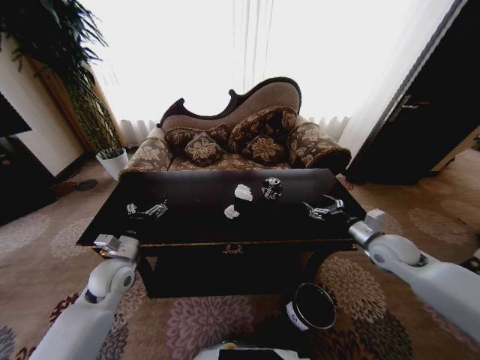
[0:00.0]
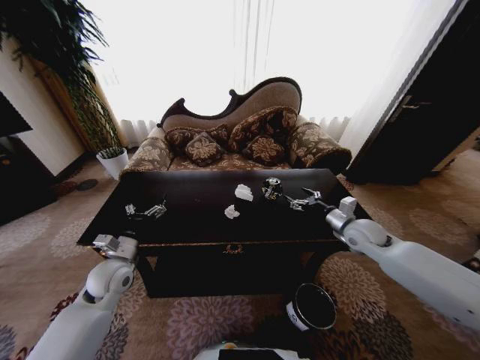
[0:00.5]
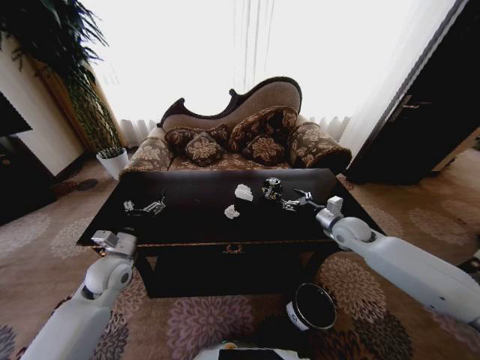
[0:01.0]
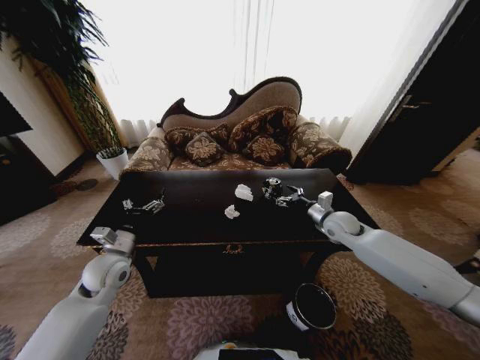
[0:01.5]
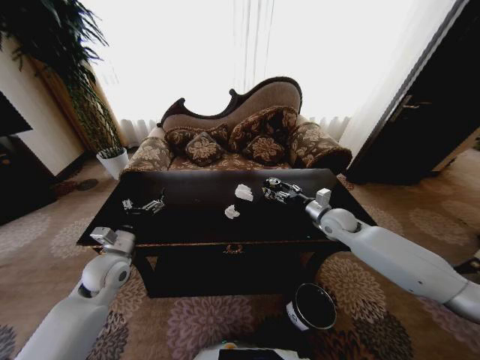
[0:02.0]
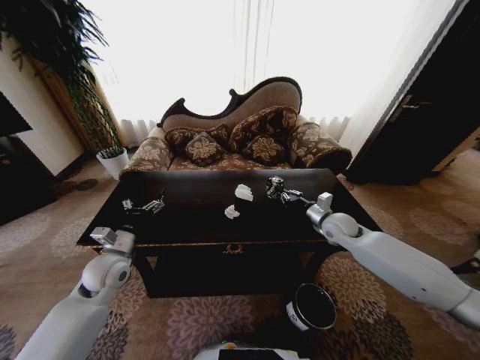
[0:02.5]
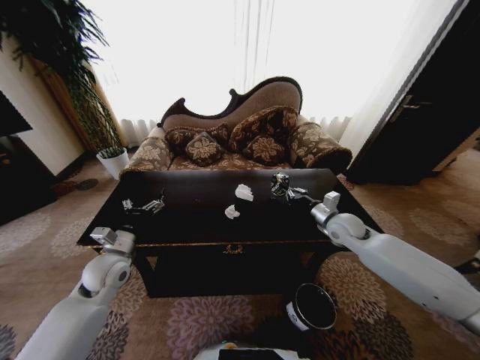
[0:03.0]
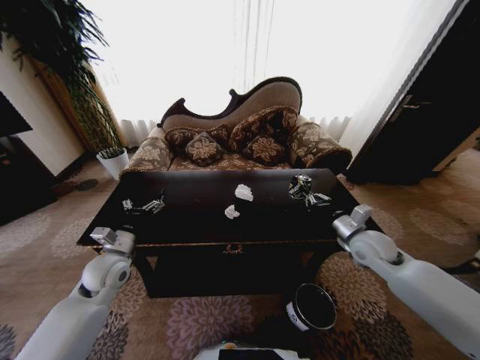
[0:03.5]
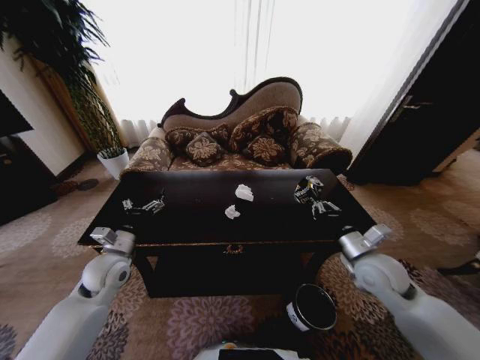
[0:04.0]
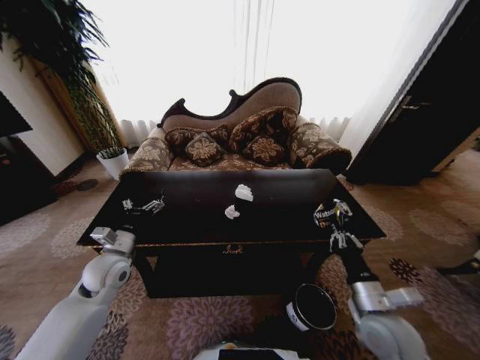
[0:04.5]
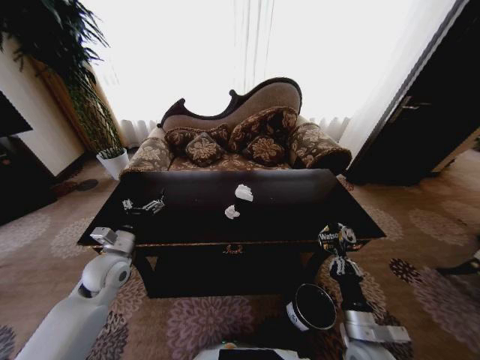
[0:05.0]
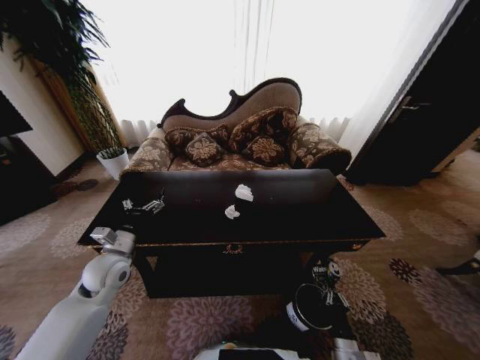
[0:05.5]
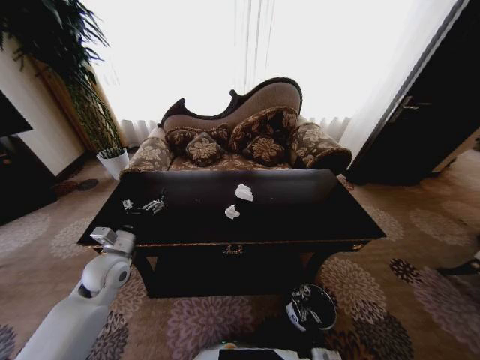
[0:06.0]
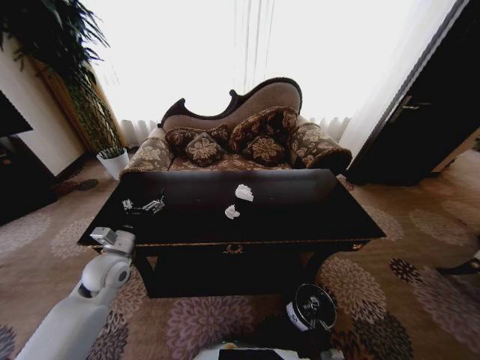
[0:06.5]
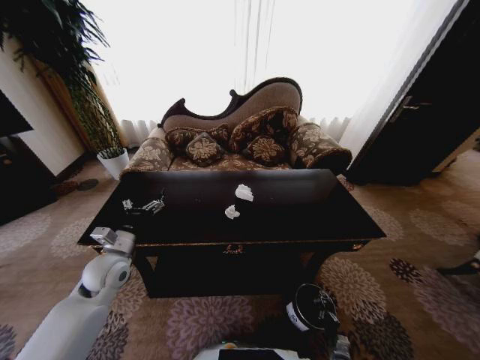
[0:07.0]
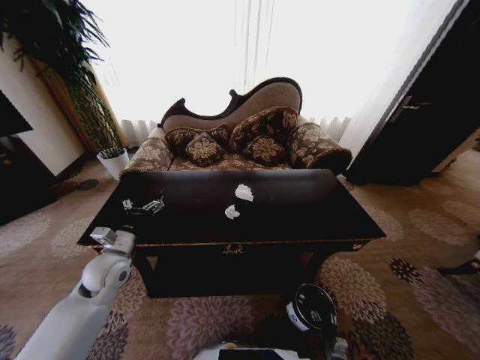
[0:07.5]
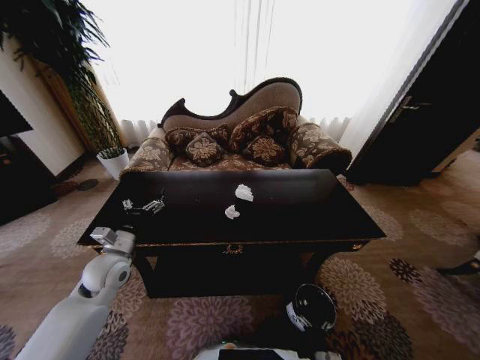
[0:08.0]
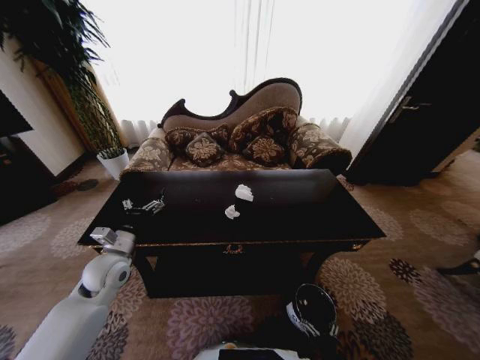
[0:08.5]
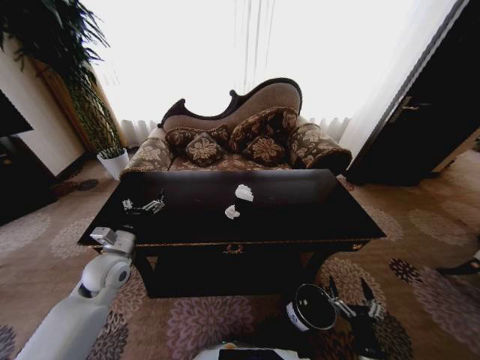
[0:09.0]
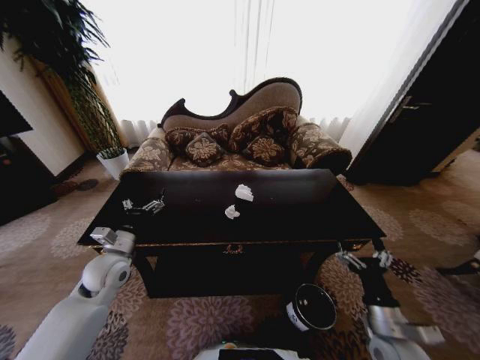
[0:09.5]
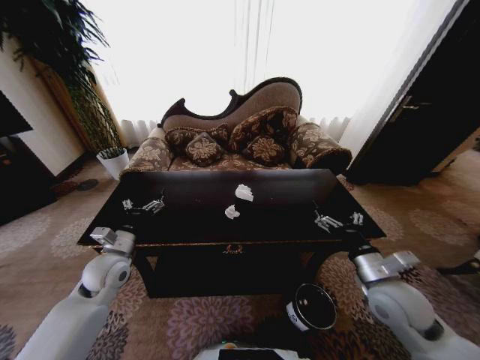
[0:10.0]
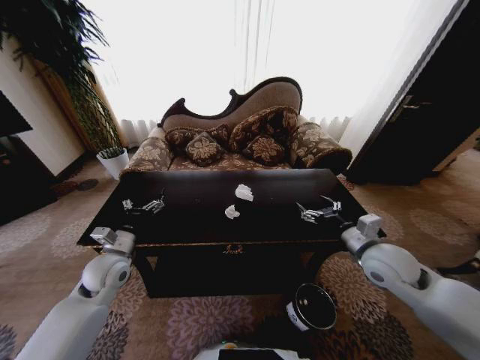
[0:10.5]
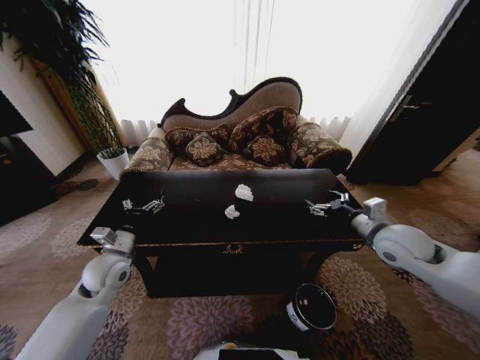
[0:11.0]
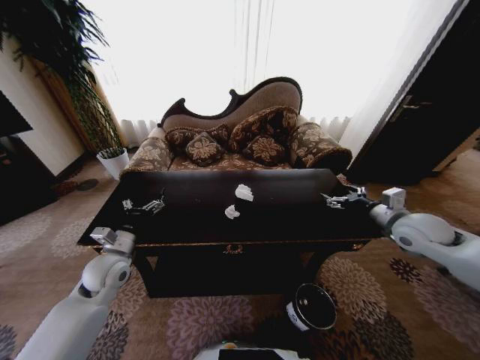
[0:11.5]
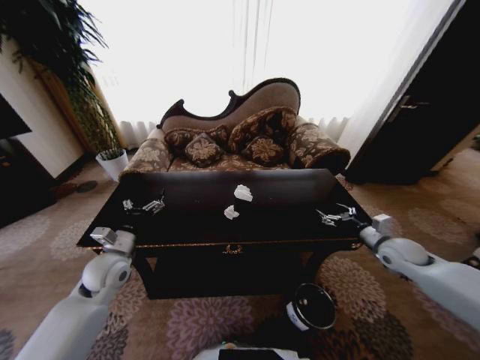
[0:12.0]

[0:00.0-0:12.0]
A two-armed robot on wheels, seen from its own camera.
Task of the whole recording: Move to the front of the table and place the trash on the table into the trash bin.
0:00.0 to 0:02.0: The right gripper travels forward and to the left by roughly 15 cm.
0:02.0 to 0:04.0: The right gripper moves backward, some 15 cm, and closes up.
0:04.0 to 0:06.0: The right gripper travels downward and backward by approximately 50 cm.
0:08.0 to 0:10.0: The right gripper travels upward by approximately 40 cm.
0:10.0 to 0:12.0: The right gripper goes approximately 20 cm to the right and forward.

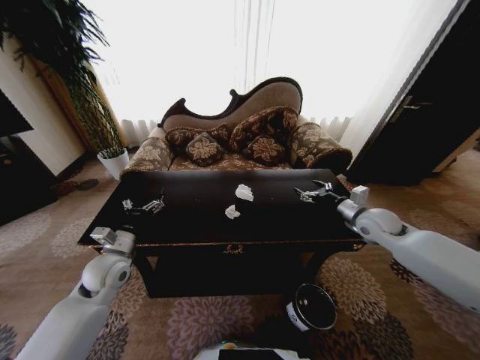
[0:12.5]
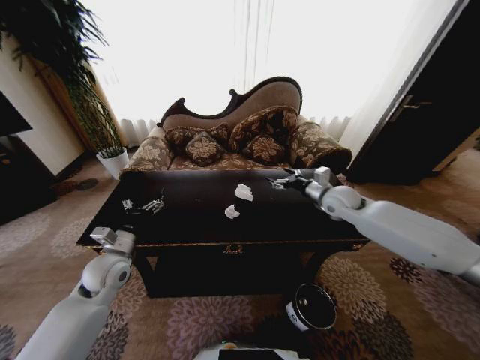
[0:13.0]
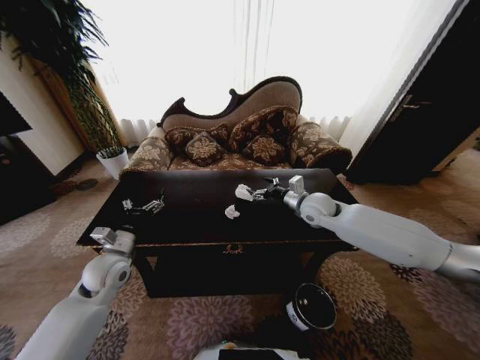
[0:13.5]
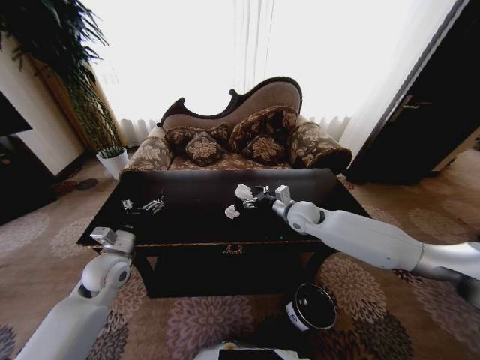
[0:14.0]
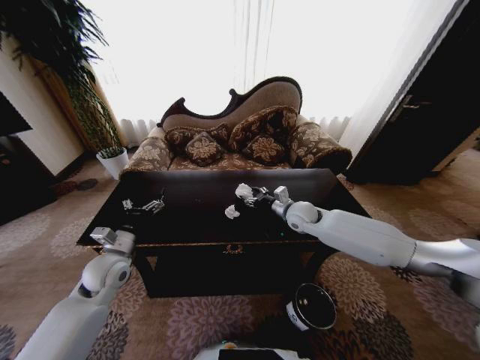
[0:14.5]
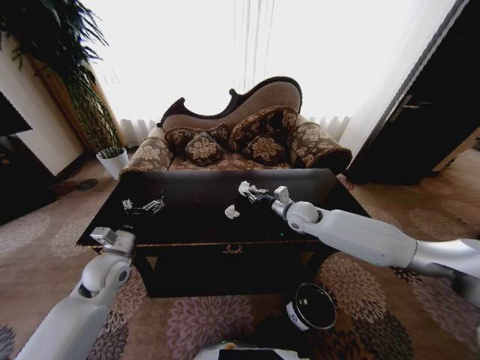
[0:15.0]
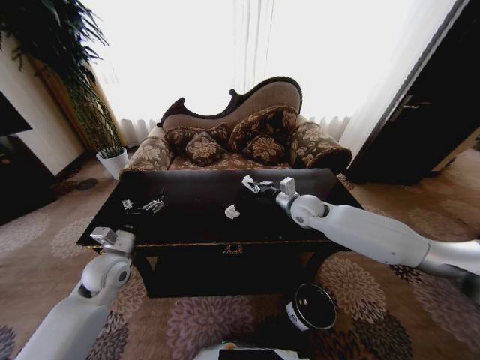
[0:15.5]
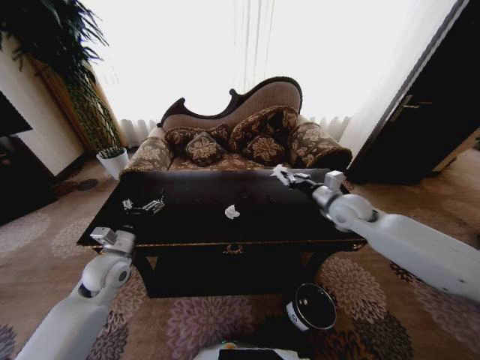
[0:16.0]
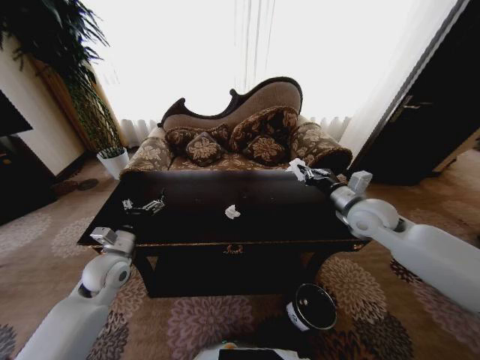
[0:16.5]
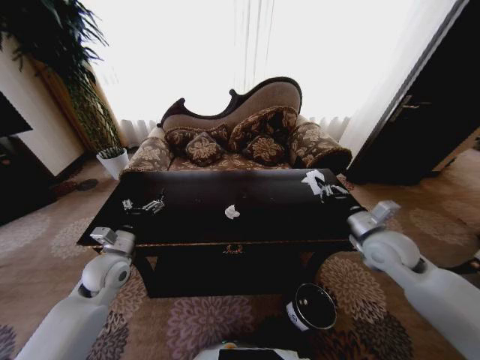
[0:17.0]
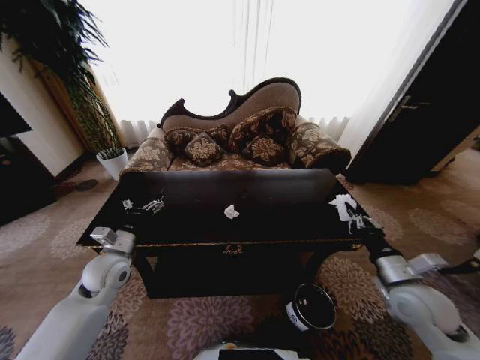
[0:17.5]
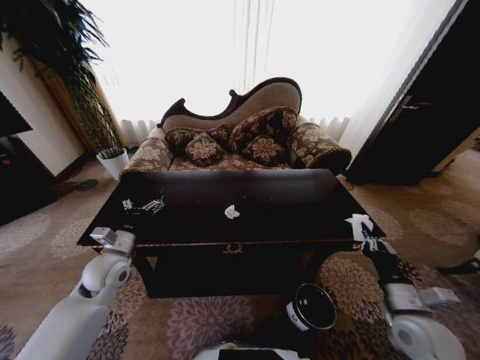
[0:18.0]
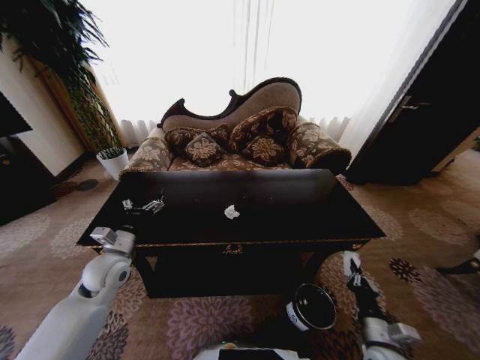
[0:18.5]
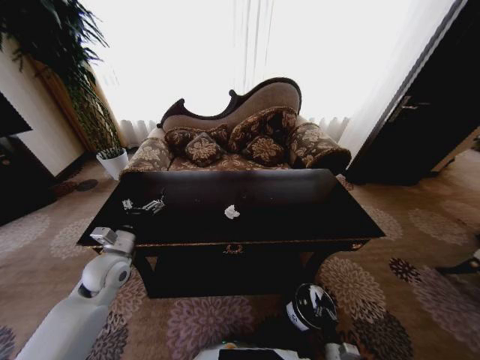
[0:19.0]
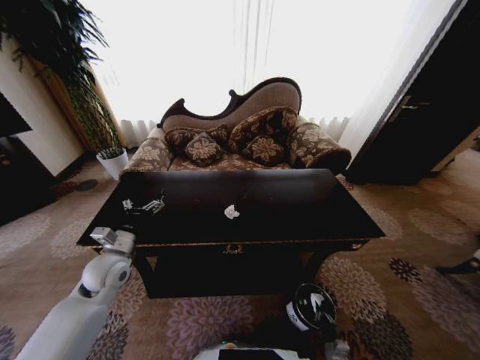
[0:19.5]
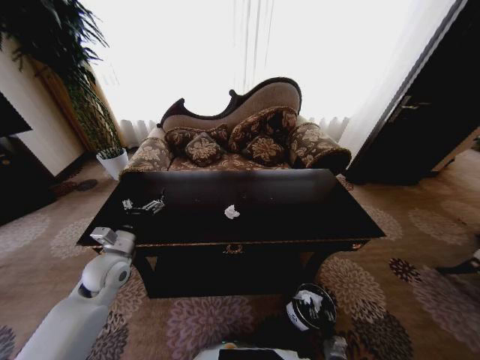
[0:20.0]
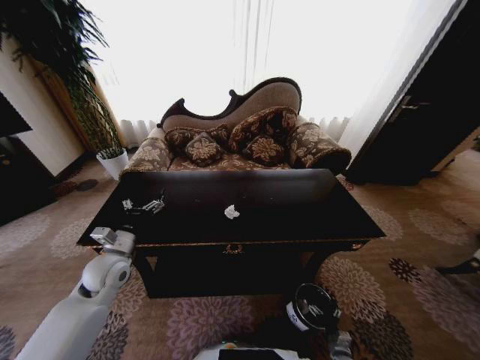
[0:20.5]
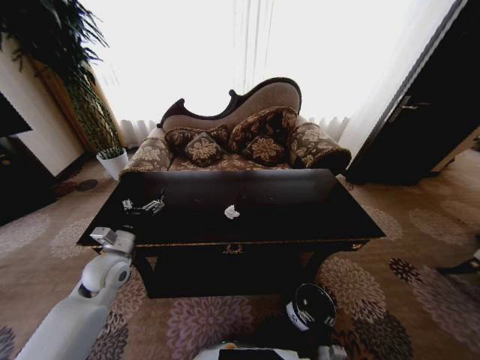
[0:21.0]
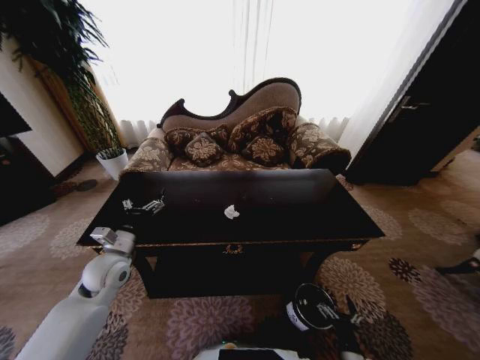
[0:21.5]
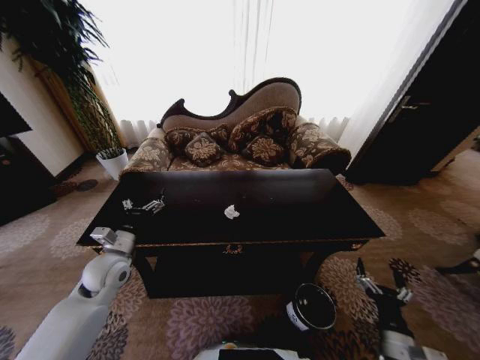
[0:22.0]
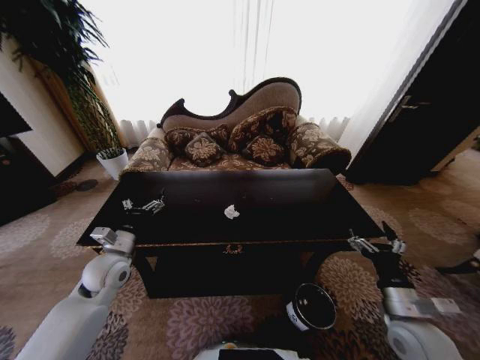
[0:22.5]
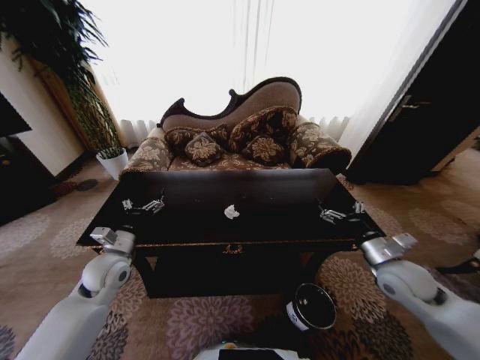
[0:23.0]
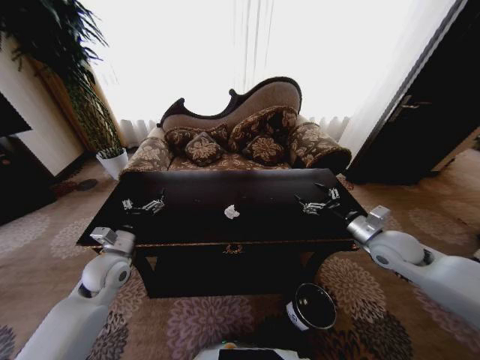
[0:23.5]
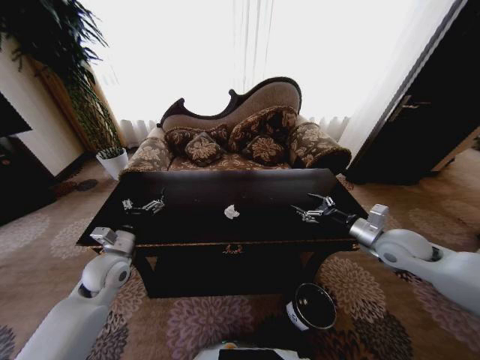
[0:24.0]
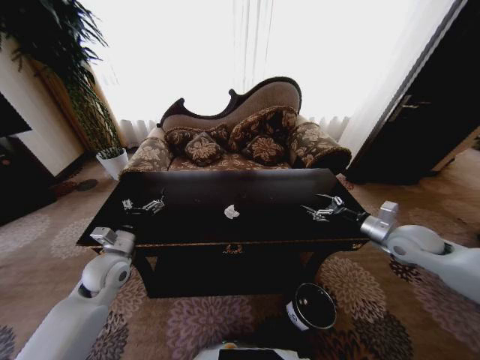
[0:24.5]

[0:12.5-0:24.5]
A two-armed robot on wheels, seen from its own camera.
Task of the whole recording: Move to the front of the table and place the trash on the table into the trash bin.
0:12.5 to 0:14.5: The right gripper shifts some 20 cm to the left.
0:14.5 to 0:16.5: The right gripper is displaced to the right, upward and backward by roughly 15 cm, and closes.
0:16.5 to 0:18.5: The right gripper moves downward and backward, approximately 35 cm.
0:18.5 to 0:20.5: The right gripper goes some 25 cm downward, and opens up.
0:20.5 to 0:22.5: The right gripper goes roughly 35 cm upward.
0:22.5 to 0:24.5: The right gripper shifts roughly 20 cm forward, upward and to the right.

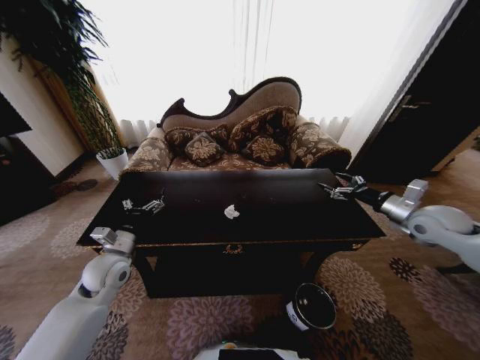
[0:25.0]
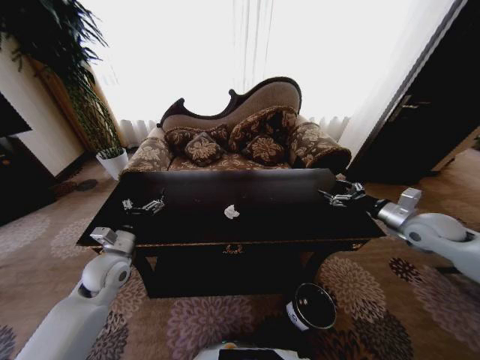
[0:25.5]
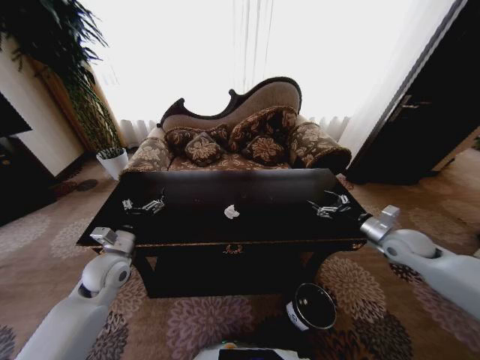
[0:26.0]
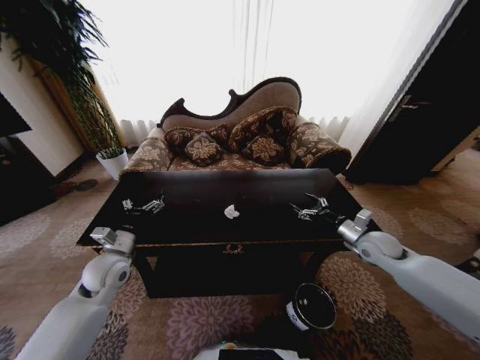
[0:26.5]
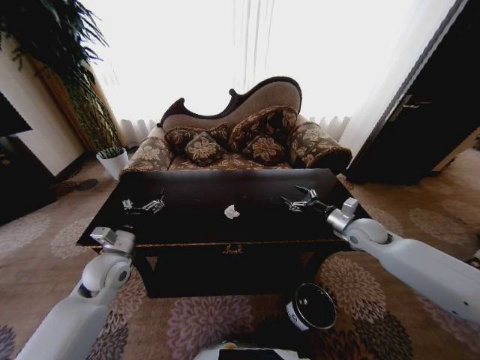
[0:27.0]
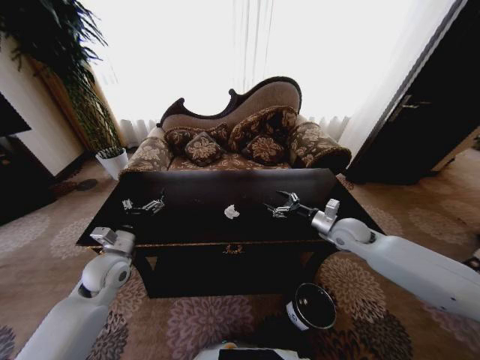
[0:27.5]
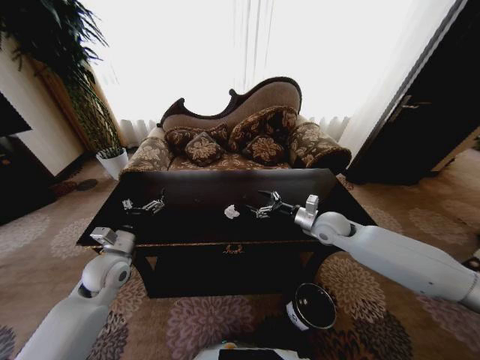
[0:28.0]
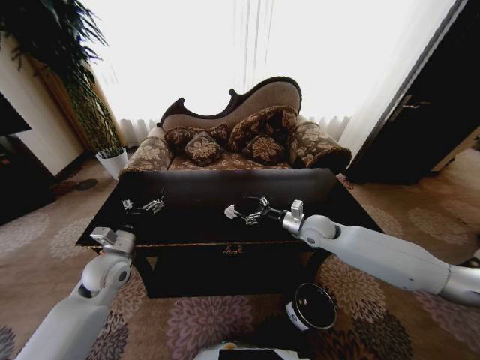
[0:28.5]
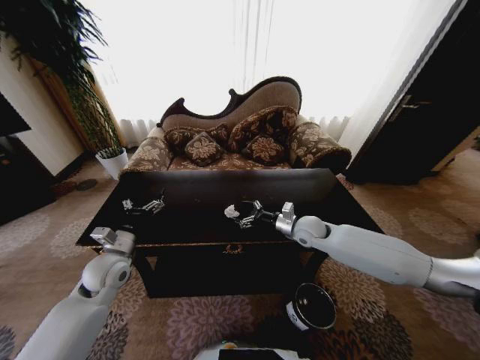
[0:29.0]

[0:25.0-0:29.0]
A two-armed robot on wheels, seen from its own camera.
Task of the whole recording: Move to the front of the table and place the trash on the table into the trash bin.
0:25.0 to 0:27.0: The right gripper heads downward and to the left, covering about 15 cm.
0:27.0 to 0:29.0: The right gripper shifts roughly 15 cm to the left.
